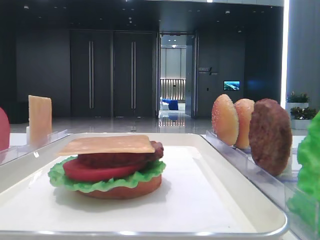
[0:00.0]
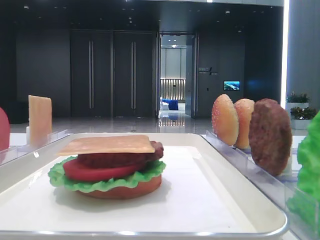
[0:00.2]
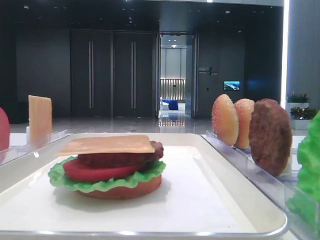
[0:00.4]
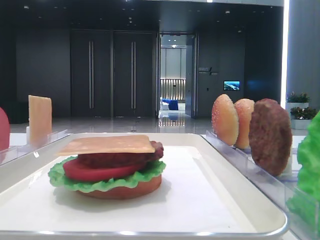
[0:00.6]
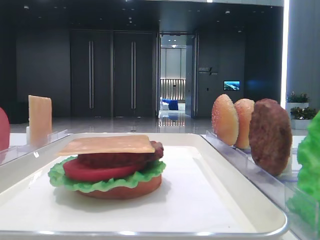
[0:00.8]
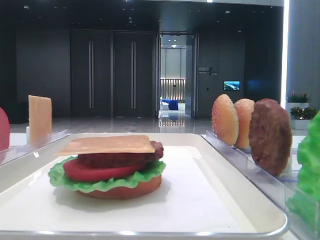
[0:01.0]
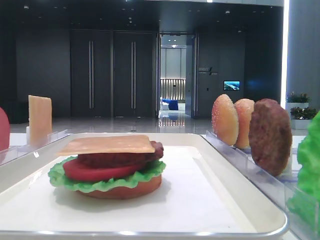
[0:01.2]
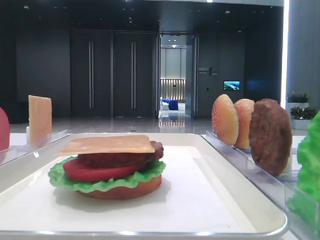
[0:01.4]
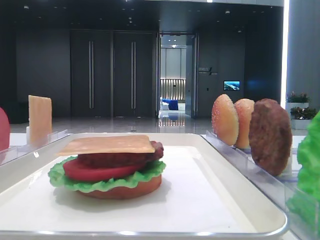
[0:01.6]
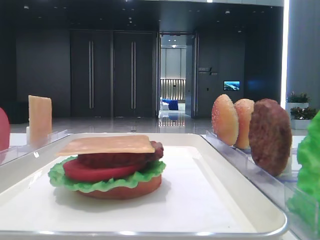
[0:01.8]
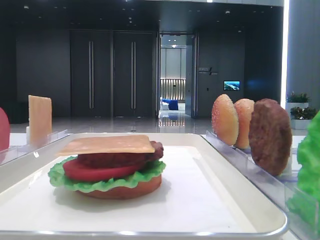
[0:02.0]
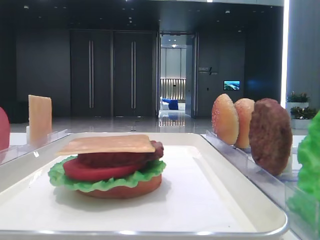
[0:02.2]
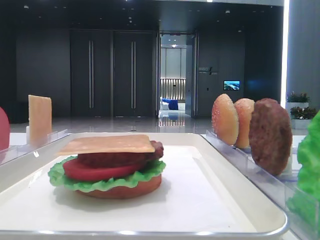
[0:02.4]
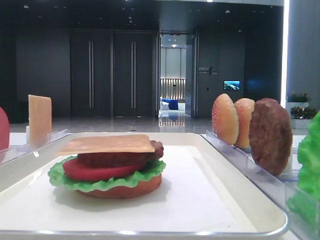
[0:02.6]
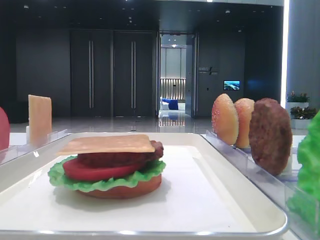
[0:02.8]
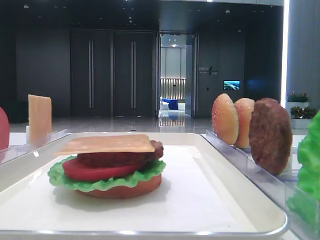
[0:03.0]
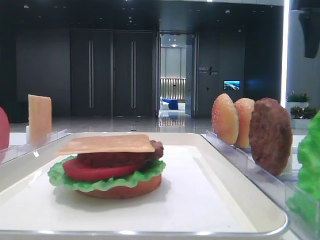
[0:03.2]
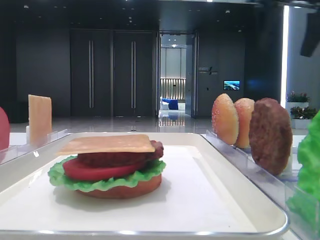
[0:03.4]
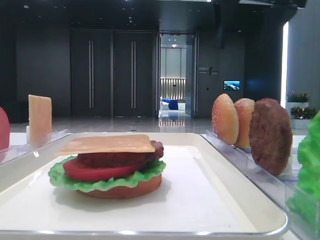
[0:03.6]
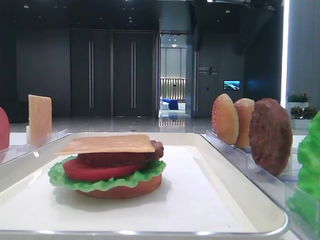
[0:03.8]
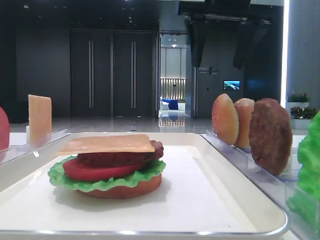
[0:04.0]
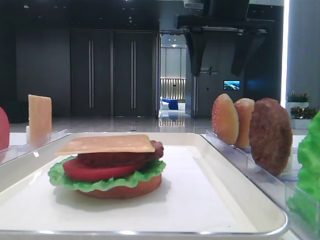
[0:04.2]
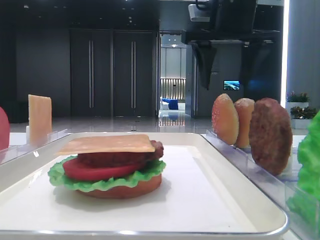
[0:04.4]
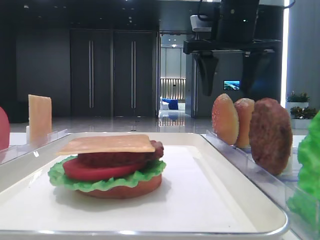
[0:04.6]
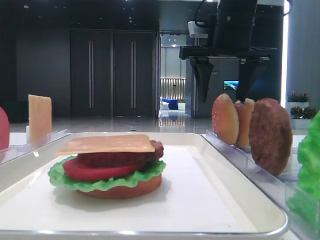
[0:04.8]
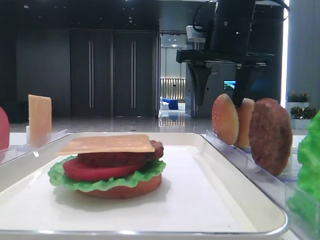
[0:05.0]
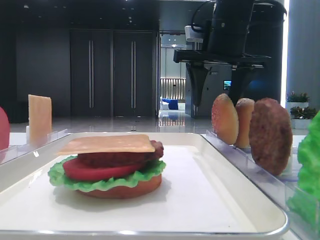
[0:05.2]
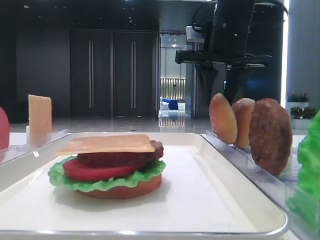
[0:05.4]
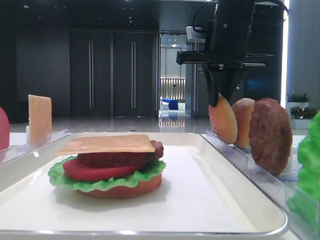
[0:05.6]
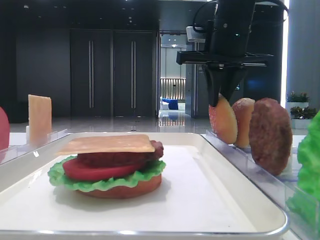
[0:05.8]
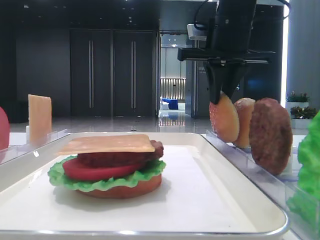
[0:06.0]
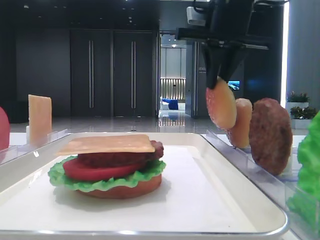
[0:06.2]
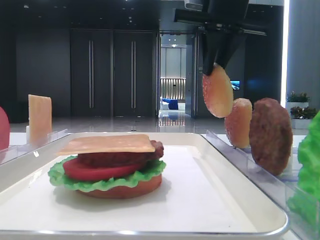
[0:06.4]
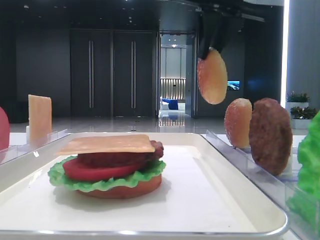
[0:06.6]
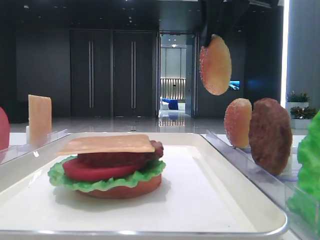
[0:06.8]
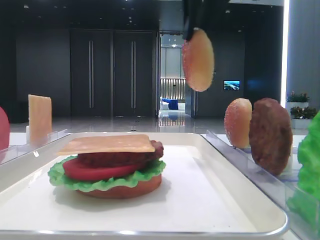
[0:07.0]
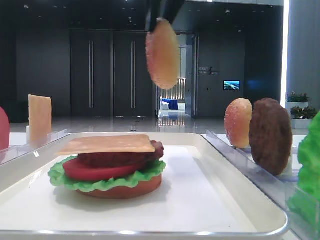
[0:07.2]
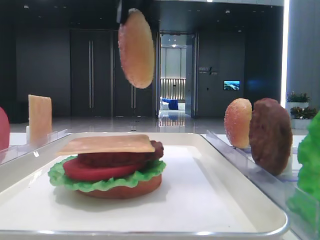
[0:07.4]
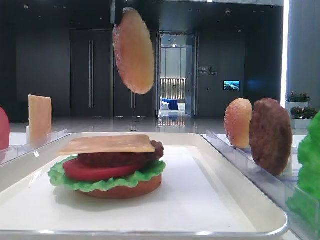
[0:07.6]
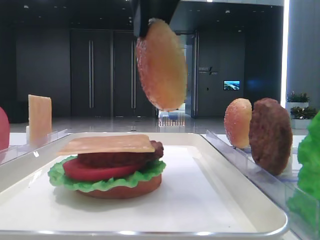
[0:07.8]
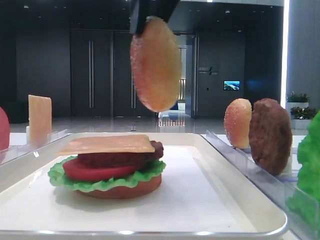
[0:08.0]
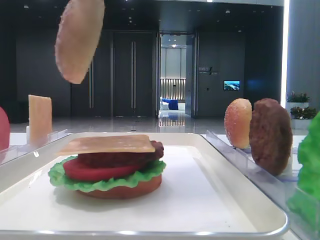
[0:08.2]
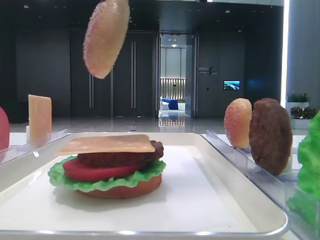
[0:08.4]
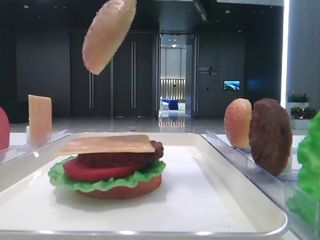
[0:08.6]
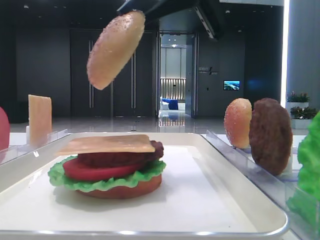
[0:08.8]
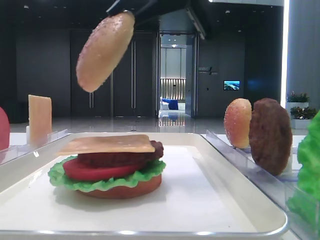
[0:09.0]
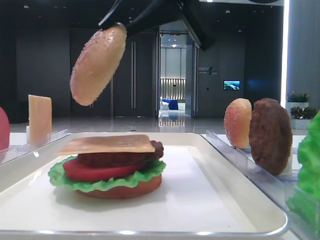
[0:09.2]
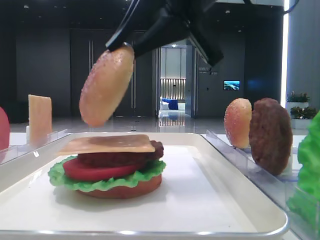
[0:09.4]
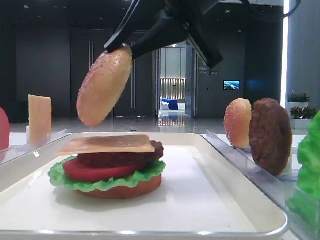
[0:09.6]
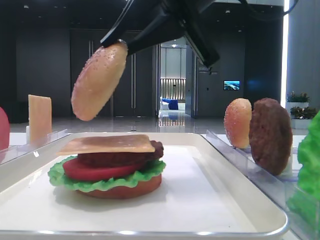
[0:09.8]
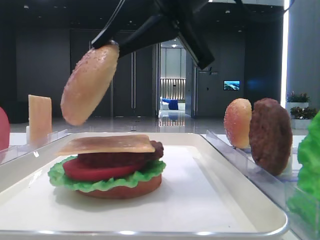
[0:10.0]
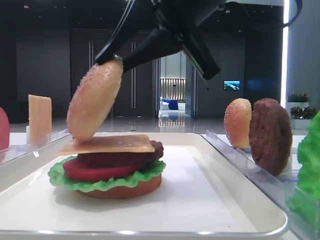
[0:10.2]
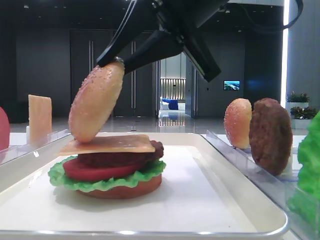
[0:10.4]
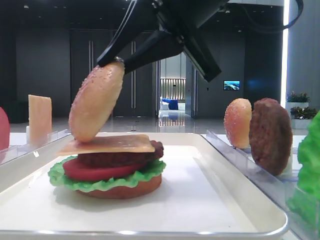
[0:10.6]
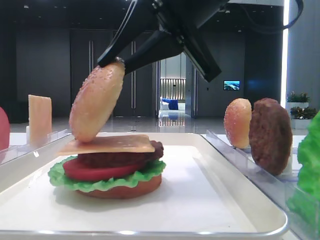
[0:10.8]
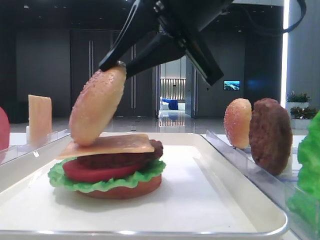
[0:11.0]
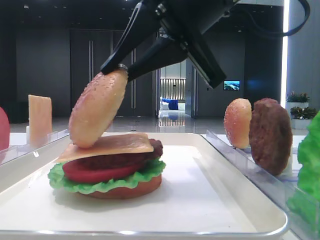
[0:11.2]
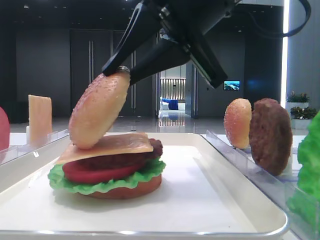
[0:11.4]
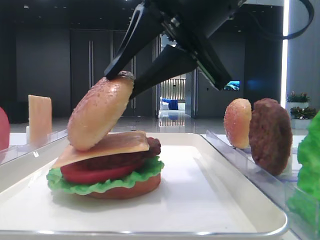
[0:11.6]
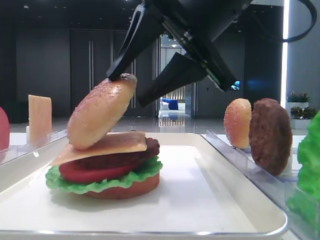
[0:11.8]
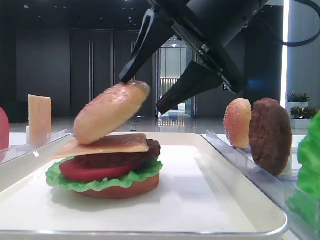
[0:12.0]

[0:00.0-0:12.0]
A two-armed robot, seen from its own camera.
Step, 0:00.0 to 0:05.4: Pick up the top bread slice with the right hand.
0:01.6 to 0:03.0: The right gripper moves forward, some 40 cm.
0:03.0 to 0:04.4: The right gripper heads to the left, covering approximately 20 cm.
0:04.4 to 0:06.0: The right gripper closes its fingers.
0:06.0 to 0:07.6: The right gripper goes approximately 20 cm backward, to the left and upward.
0:07.6 to 0:09.0: The right gripper travels to the right by some 5 cm.
0:09.0 to 0:10.4: The left gripper closes. Meanwhile the right gripper changes place by roughly 5 cm.
0:10.4 to 0:12.0: The right gripper opens its fingers.

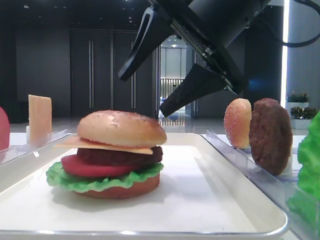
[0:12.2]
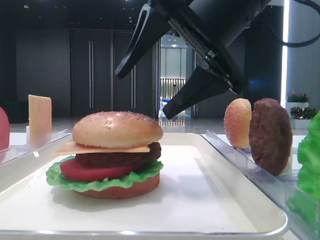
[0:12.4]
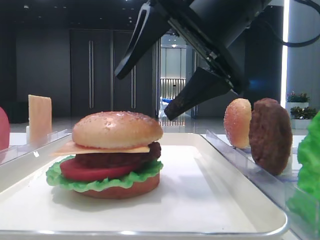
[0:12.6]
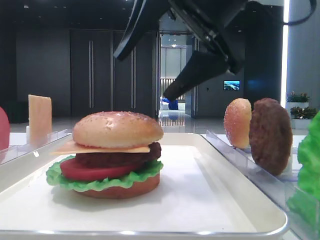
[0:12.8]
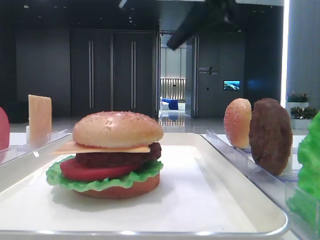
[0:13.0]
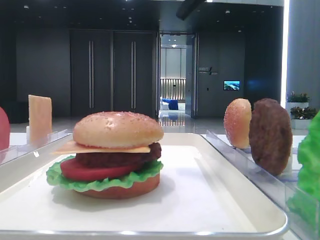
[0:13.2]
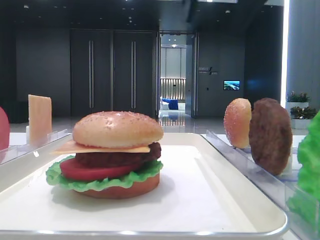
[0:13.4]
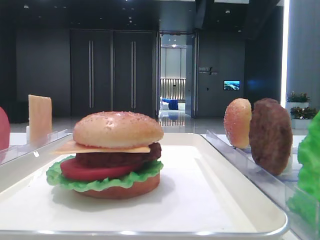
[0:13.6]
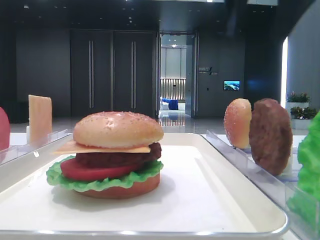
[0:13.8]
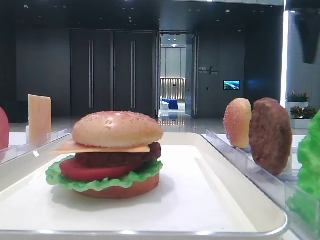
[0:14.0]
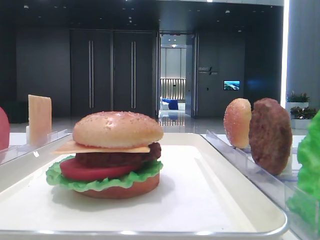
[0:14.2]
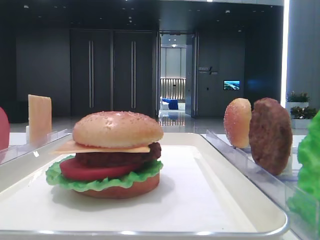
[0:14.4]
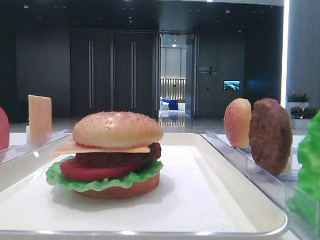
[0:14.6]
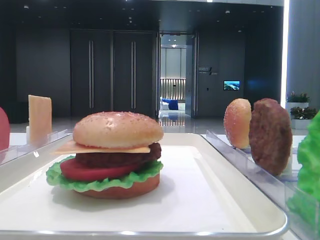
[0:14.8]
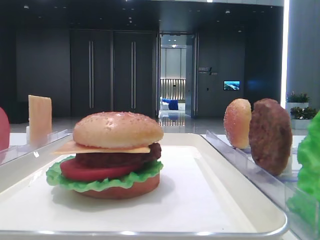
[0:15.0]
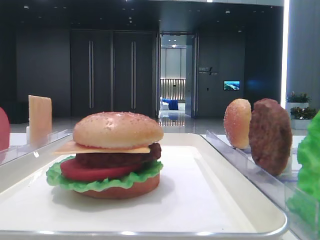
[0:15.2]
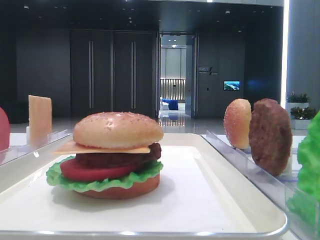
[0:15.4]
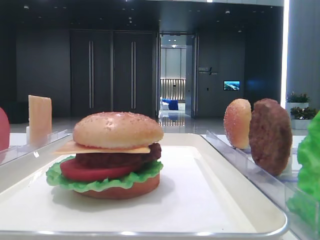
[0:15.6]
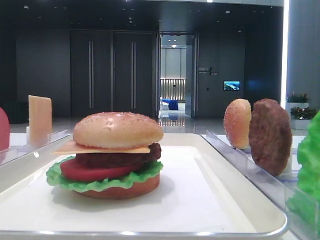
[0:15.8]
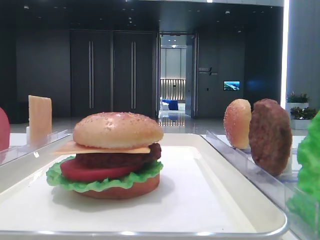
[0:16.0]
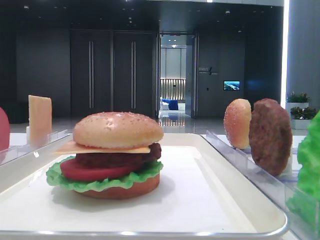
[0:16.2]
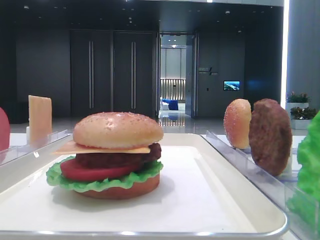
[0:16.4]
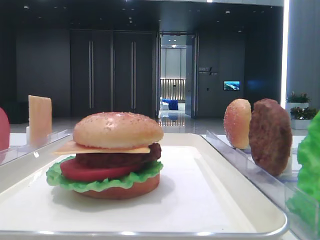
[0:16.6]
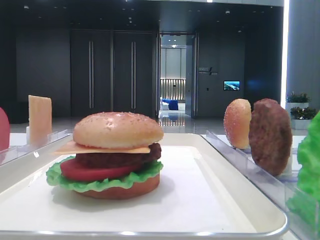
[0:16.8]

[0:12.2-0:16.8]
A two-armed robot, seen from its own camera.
0:12.2 to 0:13.8: The right gripper is displaced upward, to the right and forward by approximately 15 cm.
0:13.8 to 0:15.2: The right gripper goes approximately 30 cm backward and to the right.

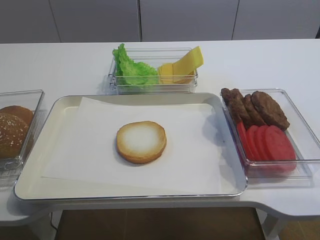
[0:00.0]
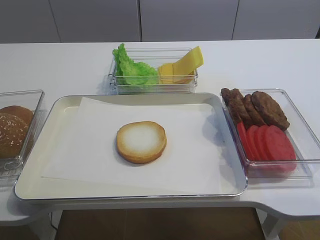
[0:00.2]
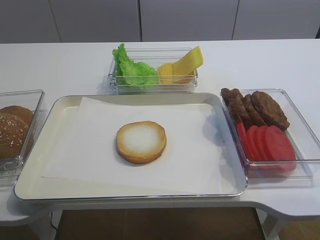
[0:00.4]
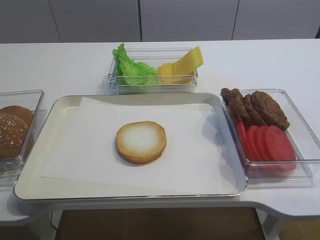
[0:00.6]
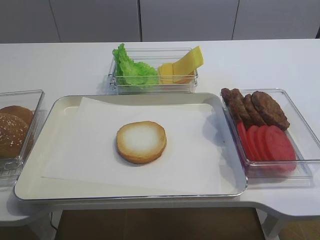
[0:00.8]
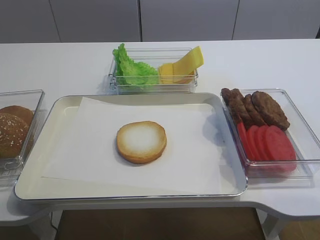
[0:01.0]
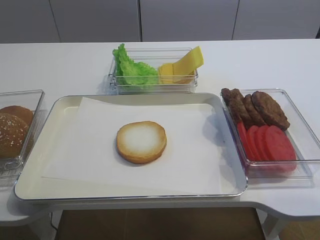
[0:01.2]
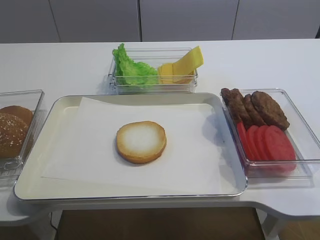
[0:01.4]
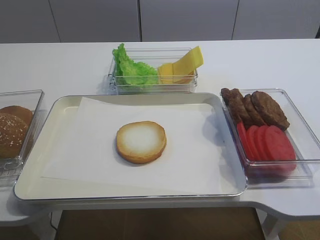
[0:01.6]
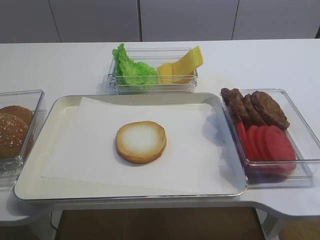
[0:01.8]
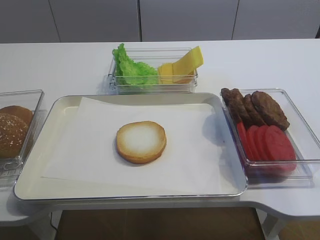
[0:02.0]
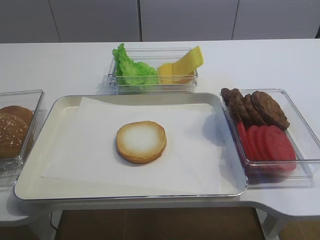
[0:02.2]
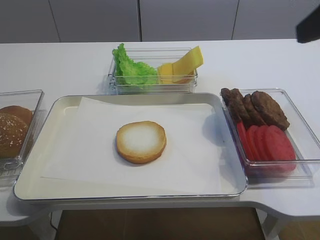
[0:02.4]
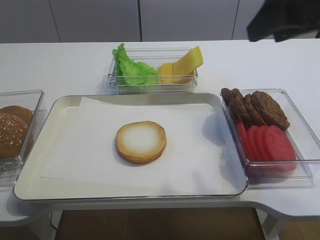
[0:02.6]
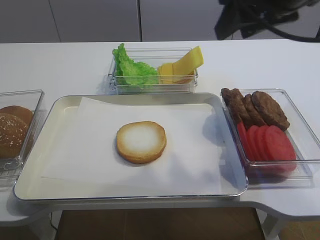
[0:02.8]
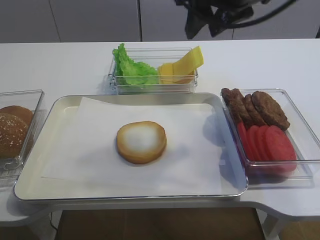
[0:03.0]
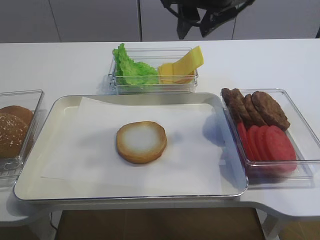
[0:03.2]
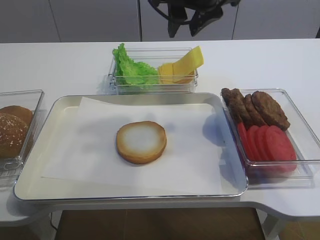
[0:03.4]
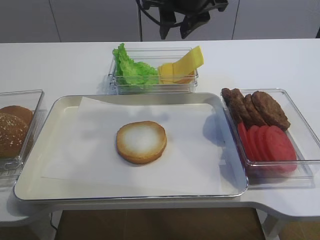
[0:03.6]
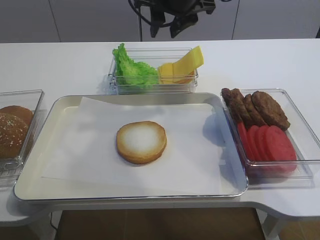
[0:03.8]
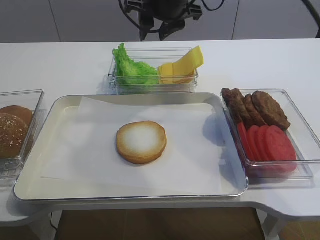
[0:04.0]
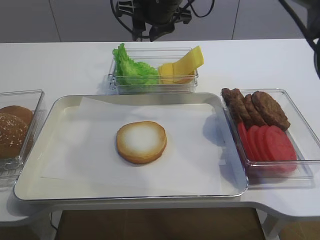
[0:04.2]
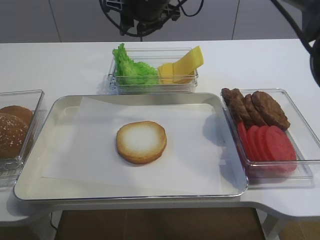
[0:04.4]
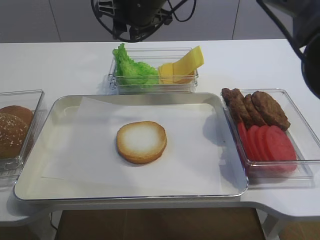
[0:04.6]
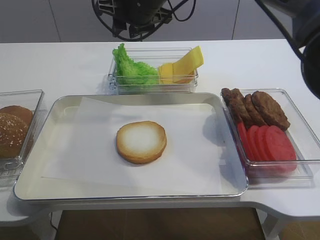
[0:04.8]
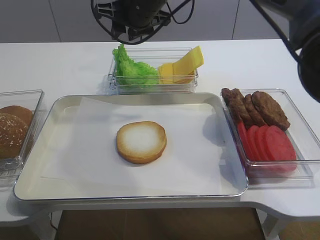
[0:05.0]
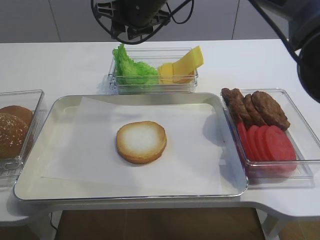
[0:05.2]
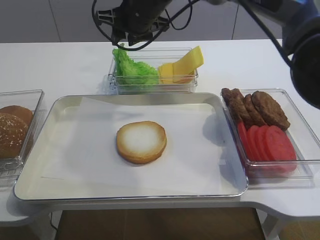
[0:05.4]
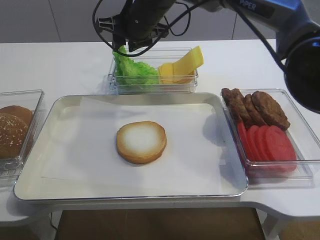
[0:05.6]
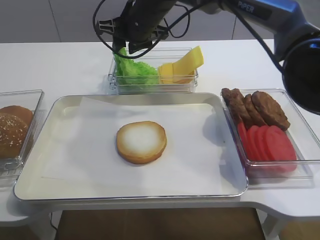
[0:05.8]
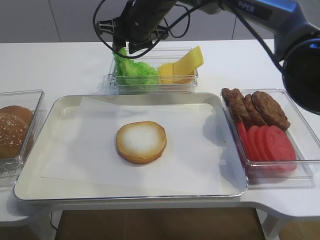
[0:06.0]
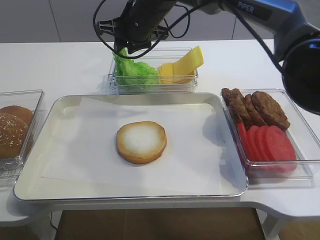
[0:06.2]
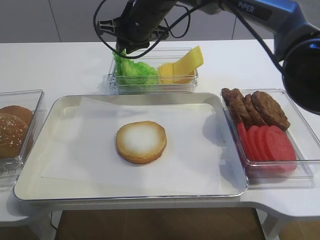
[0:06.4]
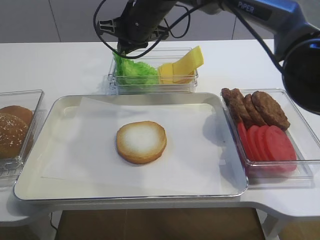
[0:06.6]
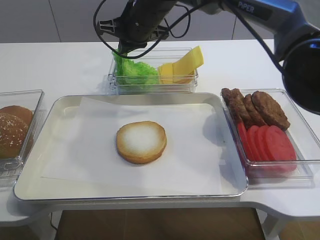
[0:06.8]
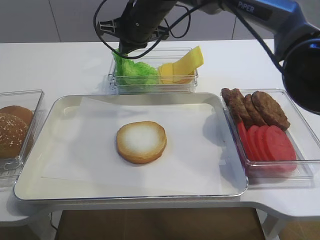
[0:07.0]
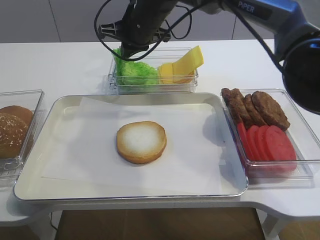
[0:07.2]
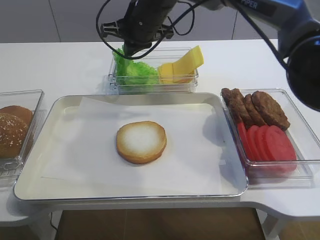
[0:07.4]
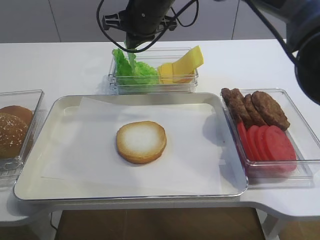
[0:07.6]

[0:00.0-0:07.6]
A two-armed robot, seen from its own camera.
0:01.6 to 0:03.0: The right gripper shifts some 35 cm forward and to the left.
0:03.0 to 0:04.6: The right gripper is displaced to the left, forward and downward by roughly 20 cm.
0:04.6 to 0:06.0: There are only small adjustments of the grippers.
0:06.0 to 0:07.6: The right gripper closes its fingers.
